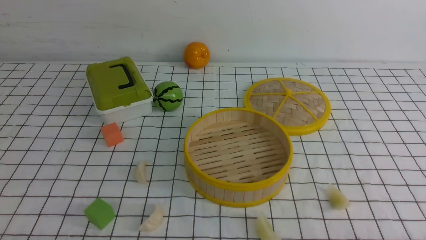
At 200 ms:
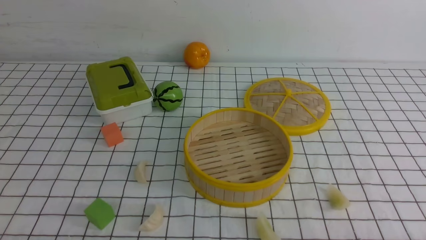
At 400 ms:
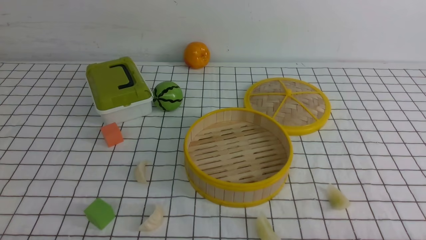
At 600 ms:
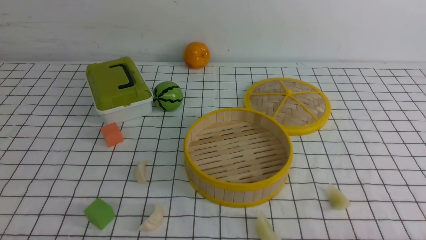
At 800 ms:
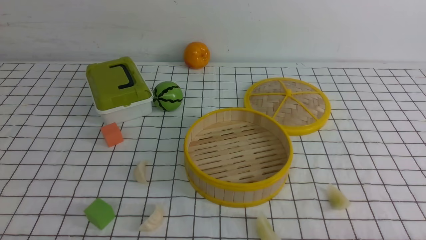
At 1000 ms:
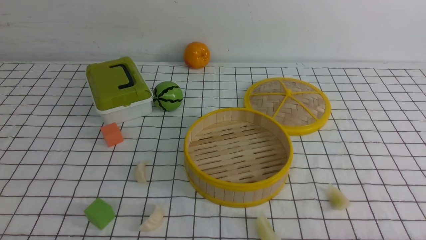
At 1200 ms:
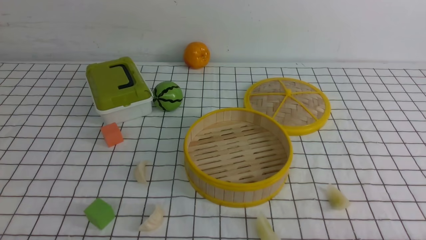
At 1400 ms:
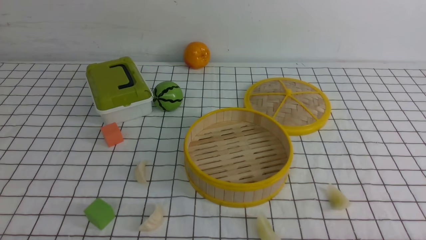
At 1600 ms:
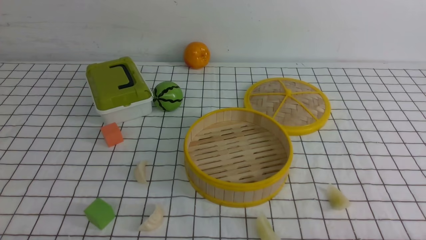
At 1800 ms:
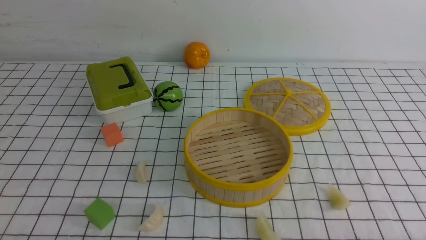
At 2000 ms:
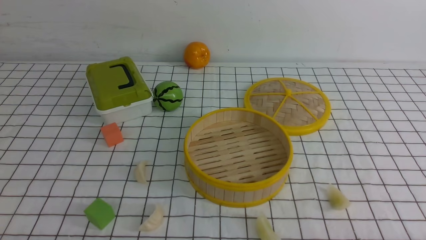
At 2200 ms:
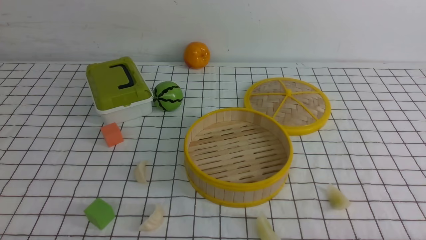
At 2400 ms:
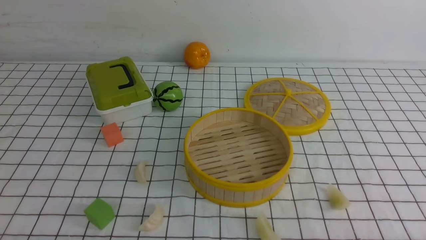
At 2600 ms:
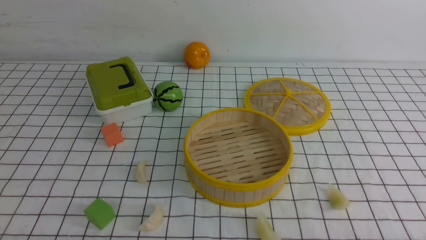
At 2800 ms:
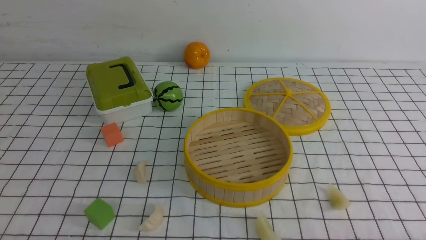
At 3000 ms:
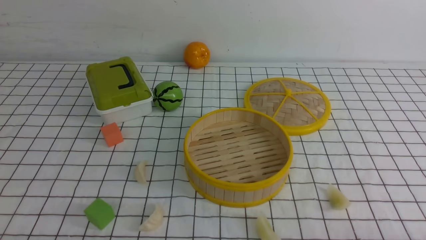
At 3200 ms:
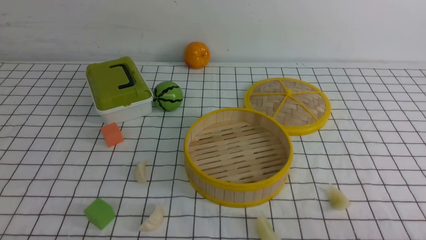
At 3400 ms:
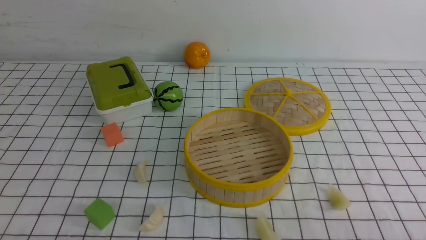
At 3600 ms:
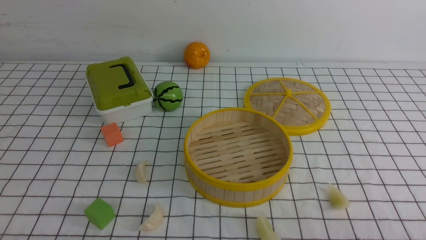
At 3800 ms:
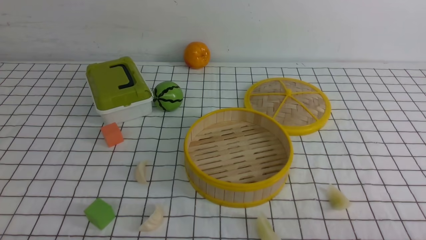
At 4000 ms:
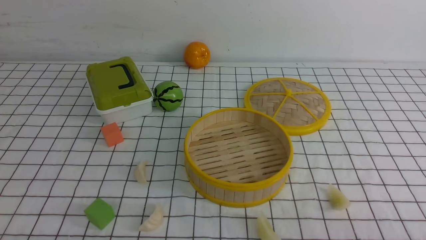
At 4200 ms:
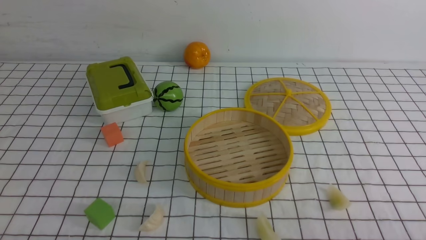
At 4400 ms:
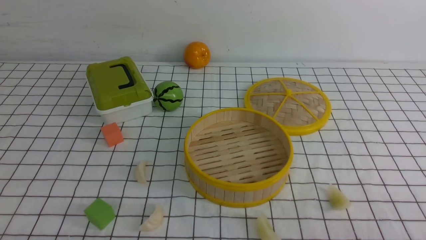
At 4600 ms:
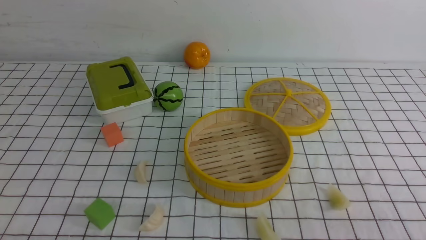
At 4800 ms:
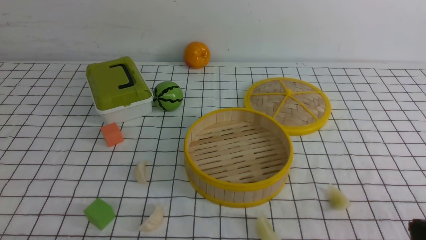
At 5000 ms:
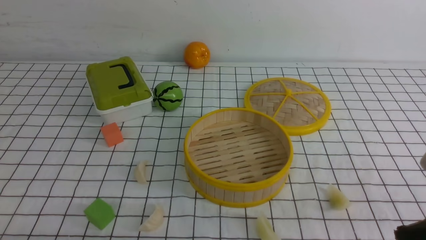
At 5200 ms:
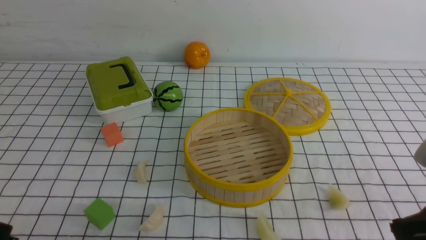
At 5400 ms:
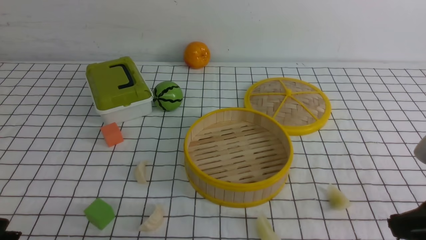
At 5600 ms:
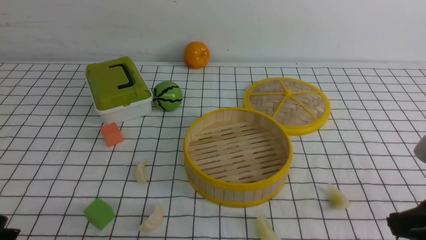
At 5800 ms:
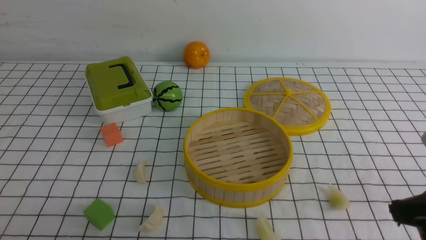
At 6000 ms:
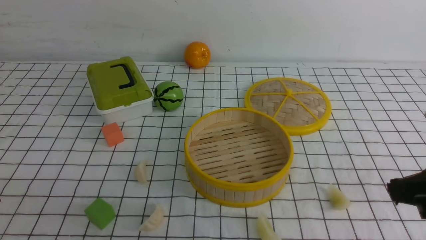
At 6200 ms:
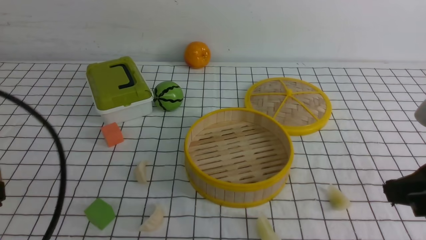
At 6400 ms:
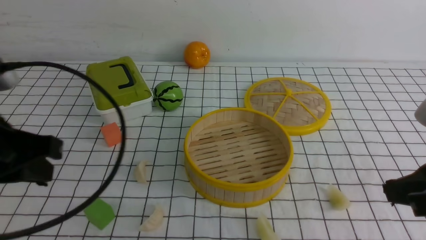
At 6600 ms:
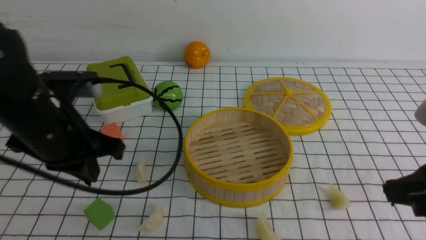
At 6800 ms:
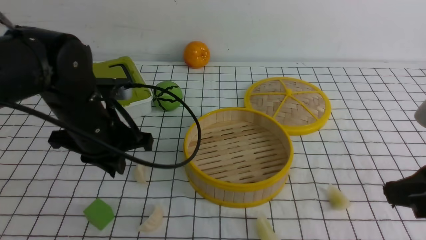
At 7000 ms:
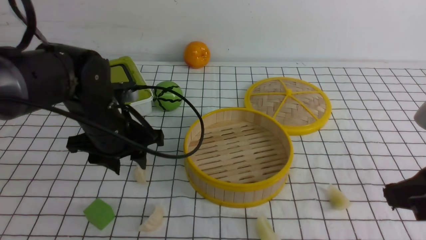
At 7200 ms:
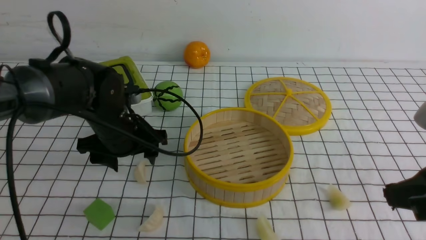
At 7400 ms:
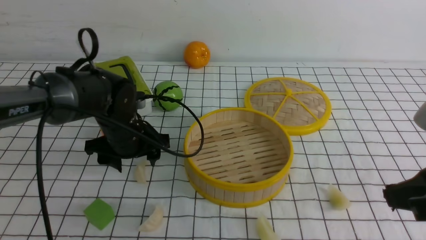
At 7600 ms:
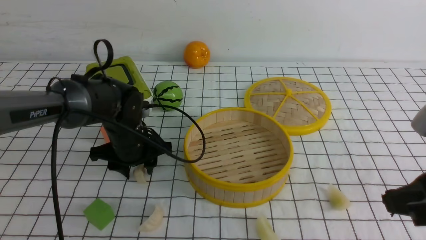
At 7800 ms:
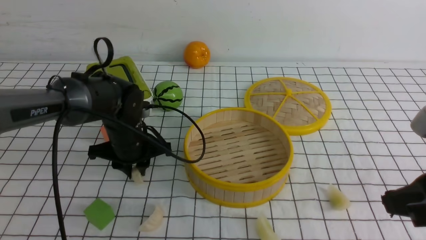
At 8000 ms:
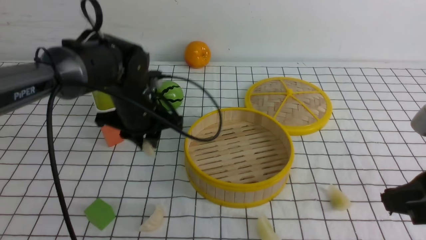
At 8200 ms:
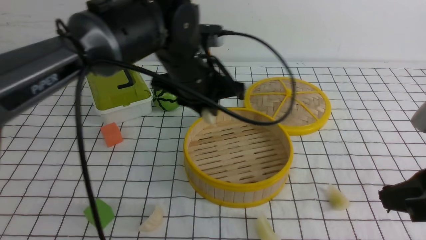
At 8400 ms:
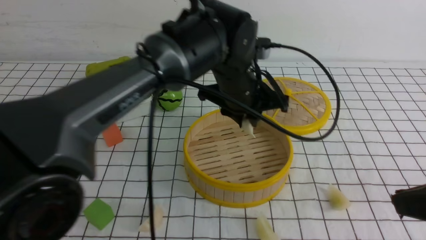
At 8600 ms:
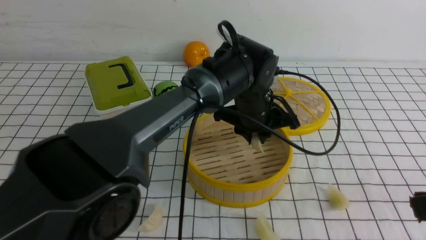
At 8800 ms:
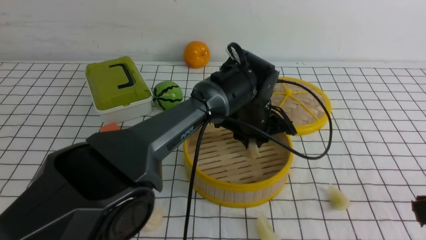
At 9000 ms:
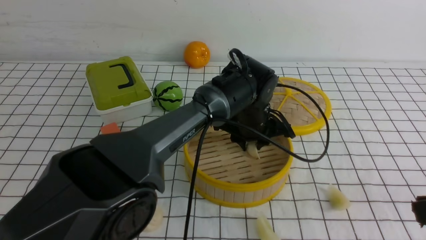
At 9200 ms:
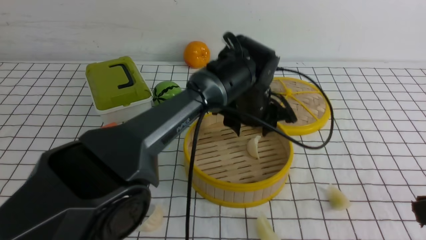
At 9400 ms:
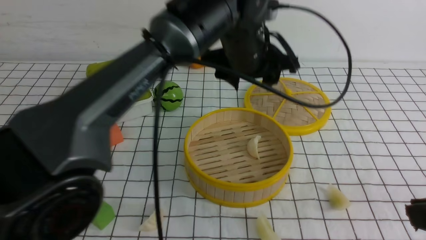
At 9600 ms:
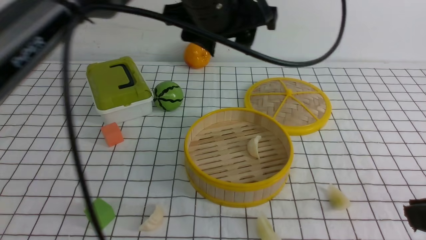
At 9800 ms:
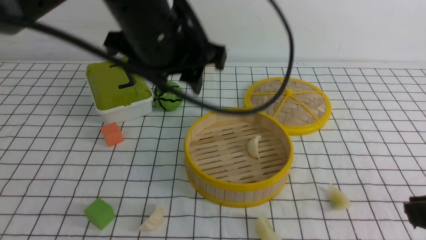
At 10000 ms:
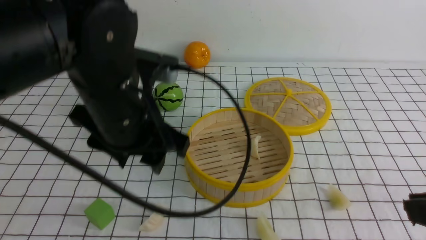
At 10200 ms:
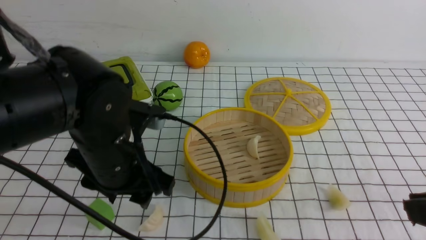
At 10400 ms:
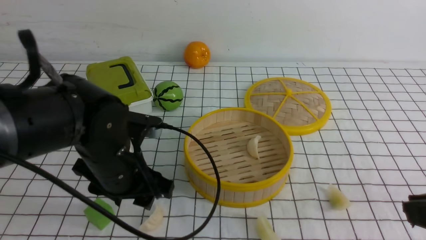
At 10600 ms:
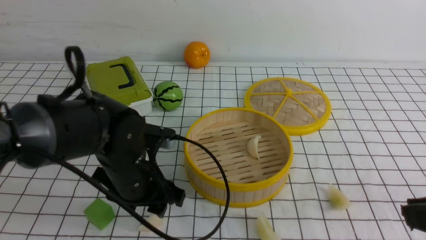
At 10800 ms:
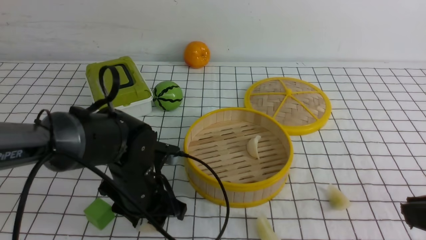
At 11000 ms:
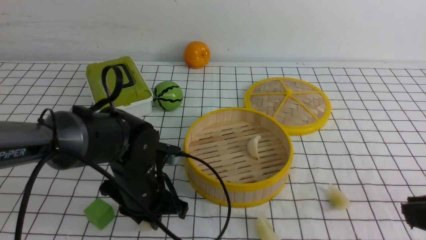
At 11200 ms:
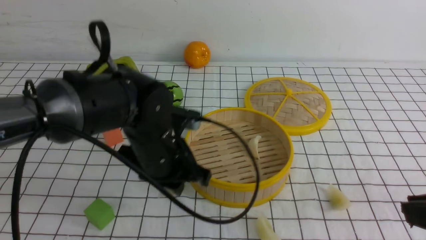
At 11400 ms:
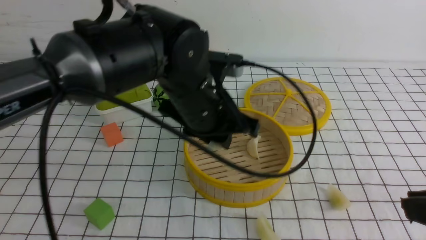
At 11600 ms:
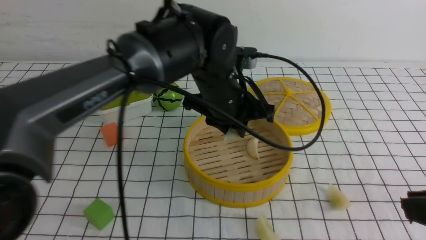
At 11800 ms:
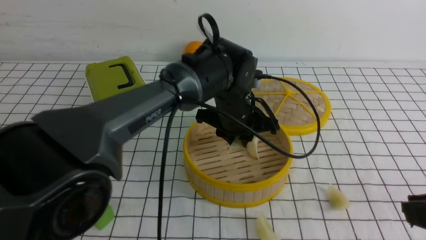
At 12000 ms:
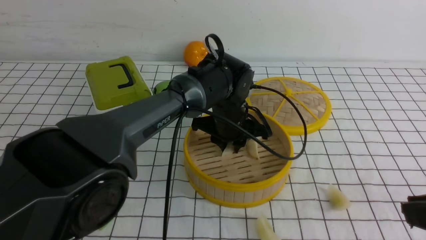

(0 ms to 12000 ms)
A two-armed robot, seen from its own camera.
Task of the whole recording: put the dumplings into the steamer on the table with the white tablecloth.
Step, 0 ms - 8200 ms: use the left arm to grab a dumpling.
Step, 8400 ms - 9400 ms: use the left arm to put the dumpling into the steamer.
Step, 9800 ms - 11400 ms: use the left arm to grab a dumpling.
4400 ms - 6000 ms: The right gripper moves forward and upward, some 10 cm.
6000 ms - 7600 ms: The left gripper is displaced forward and downward by about 35 cm, and opens up.
7600 ms - 9000 ms: The left gripper shifts some 20 cm to the right; the right gripper goes approximately 5 cm backward.
9000 ms - 10400 ms: The left gripper goes roughly 25 cm to the left and backward, and moves approximately 20 cm upward and comes back.
10400 ms - 12000 ms: The left gripper moves to the right and forward, roughly 20 cm, and closes up.

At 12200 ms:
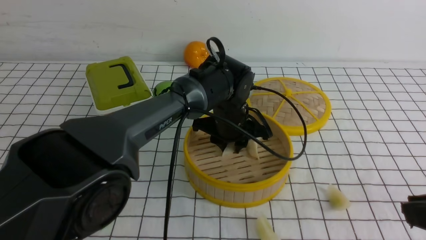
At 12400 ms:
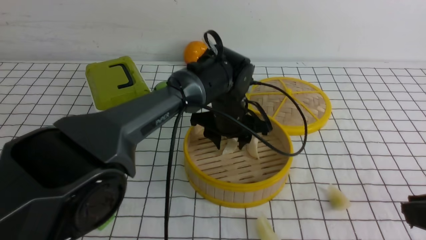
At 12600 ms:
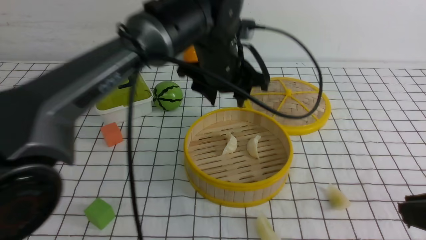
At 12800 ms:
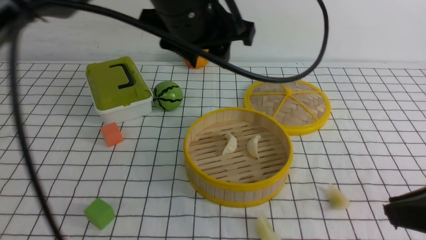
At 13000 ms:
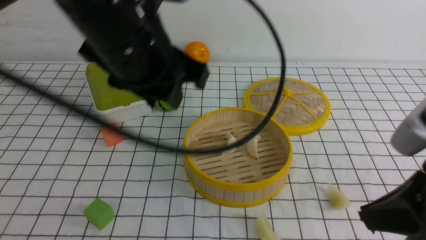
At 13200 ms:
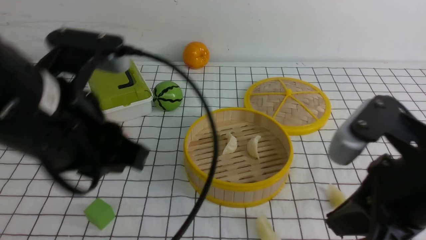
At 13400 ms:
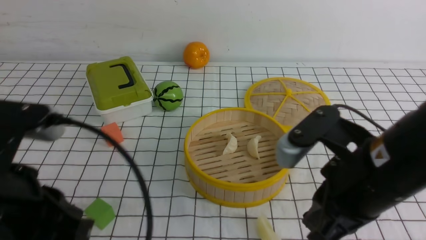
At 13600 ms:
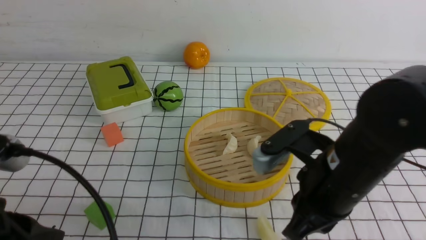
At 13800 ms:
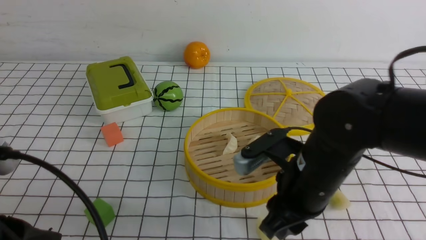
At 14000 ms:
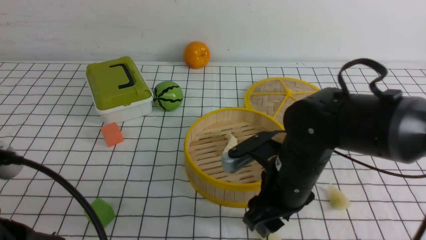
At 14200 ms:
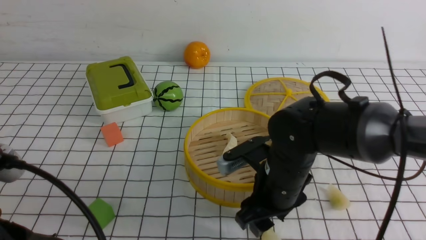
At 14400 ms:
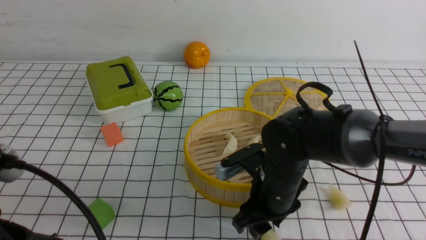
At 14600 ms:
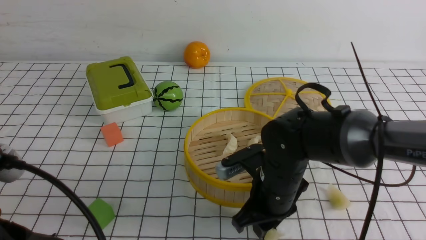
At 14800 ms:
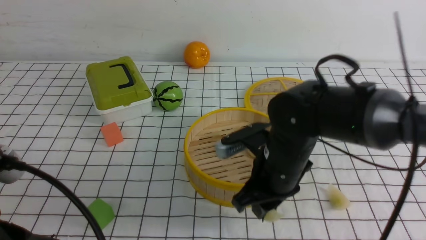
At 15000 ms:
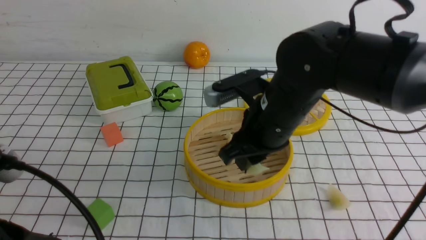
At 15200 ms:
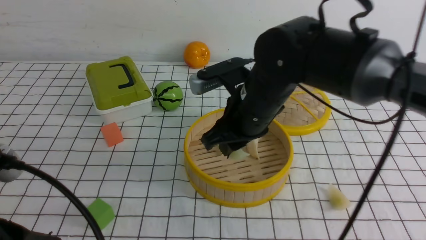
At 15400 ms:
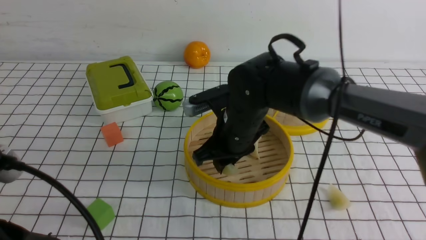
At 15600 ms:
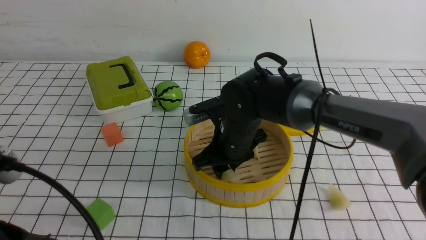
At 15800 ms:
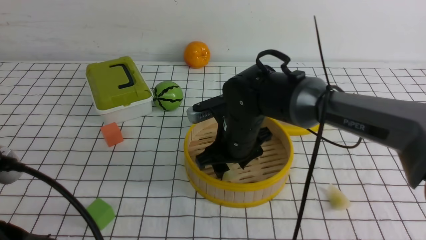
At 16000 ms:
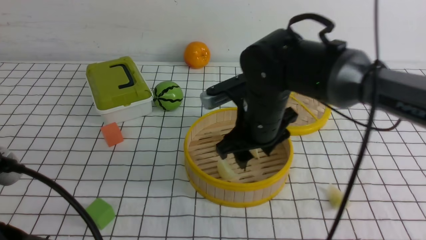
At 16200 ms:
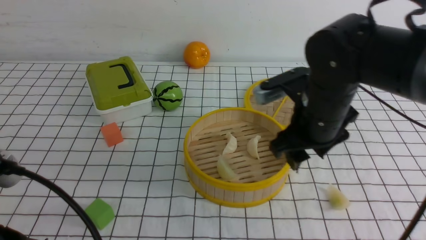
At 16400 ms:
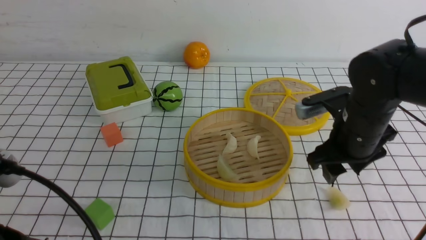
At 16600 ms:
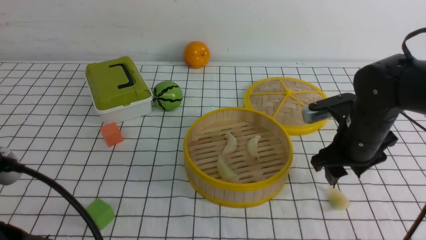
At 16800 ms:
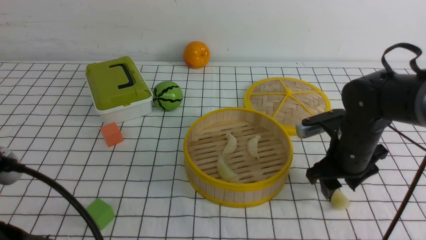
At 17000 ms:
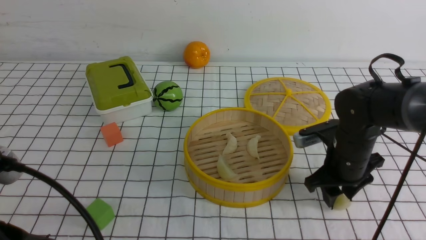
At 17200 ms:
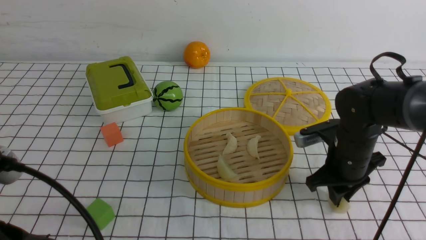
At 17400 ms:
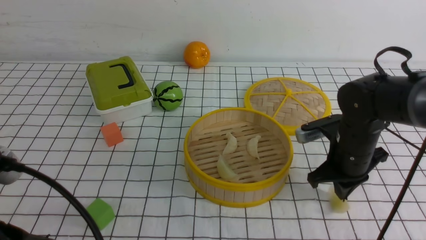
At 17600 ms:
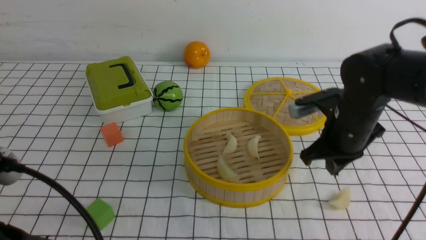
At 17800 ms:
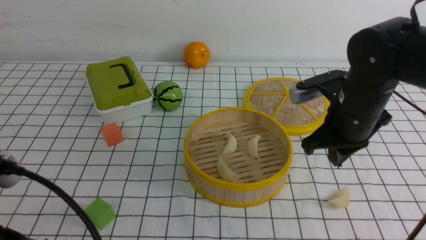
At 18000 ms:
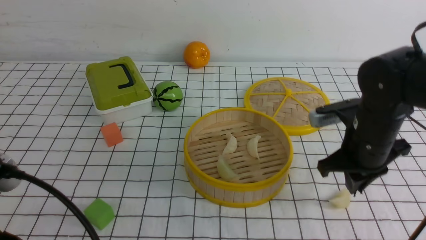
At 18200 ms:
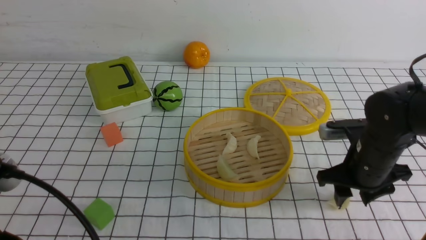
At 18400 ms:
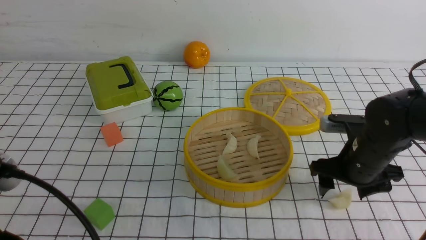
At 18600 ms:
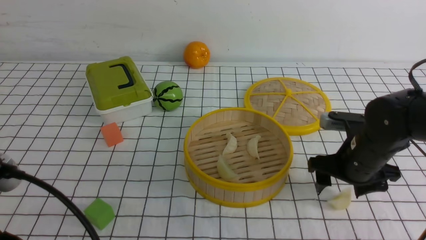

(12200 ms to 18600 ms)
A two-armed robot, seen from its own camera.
Task of the whole recording: put the dumplings into the steamer on the table with the white tablecloth.
Step, 12800 ms - 15000 ms: use the right arm to grab a dumpling.
Step, 15200 ms - 16200 ms: use the right arm to put the dumpling into the steamer.
12200 ms - 13800 ms: The right gripper goes about 20 cm to the left, forward and downward, and opens up. The left gripper travels backward and to the left by roughly 40 cm, and closes its fingers.
13800 ms - 15400 ms: The right gripper moves forward and to the left, about 15 cm.
15400 ms - 17000 ms: The right gripper is displaced to the right by approximately 15 cm.
17000 ms - 18600 ms: The right gripper closes, then reopens.
